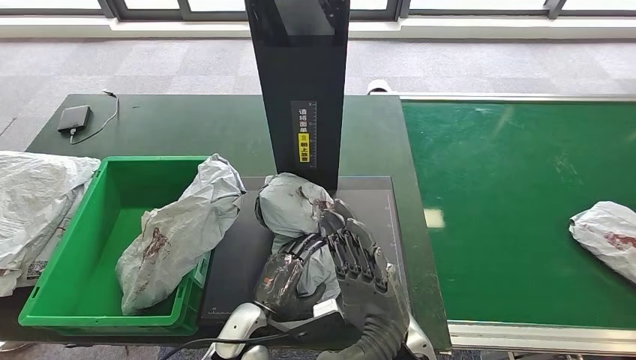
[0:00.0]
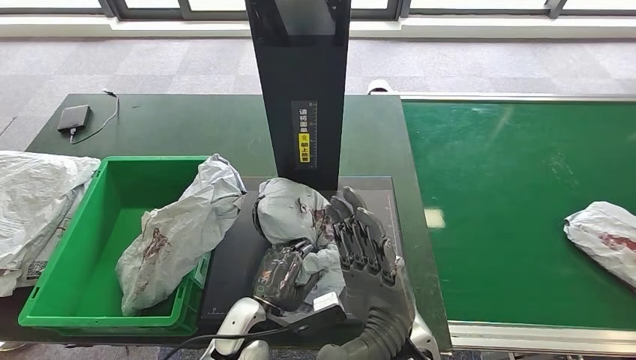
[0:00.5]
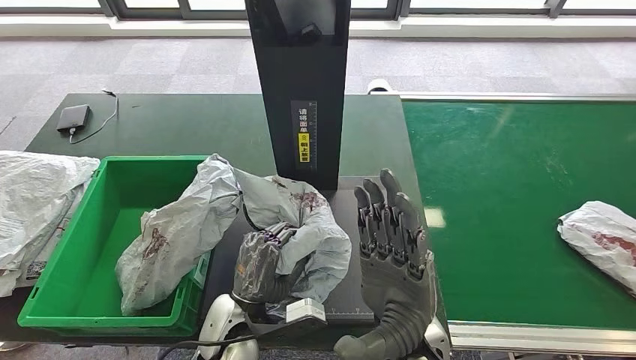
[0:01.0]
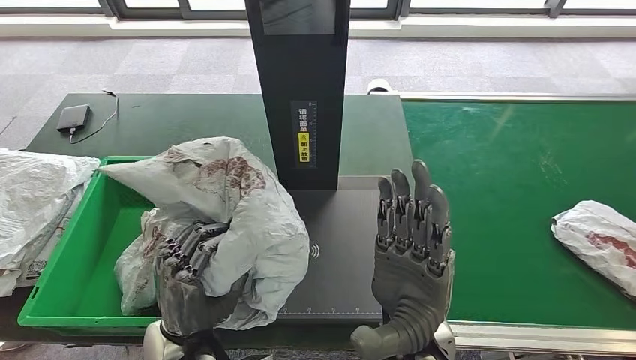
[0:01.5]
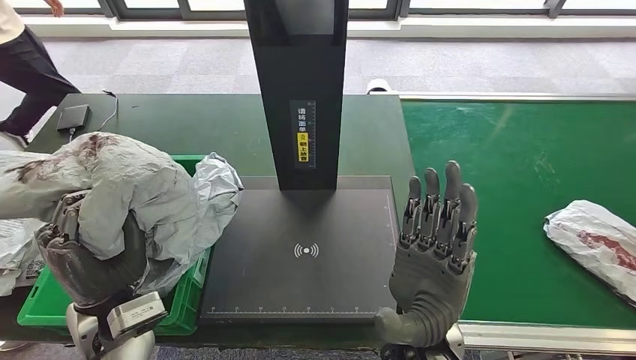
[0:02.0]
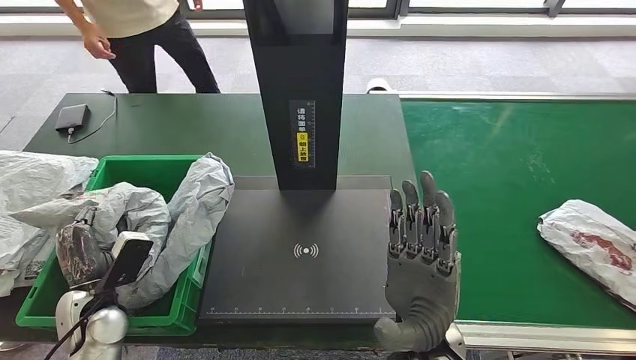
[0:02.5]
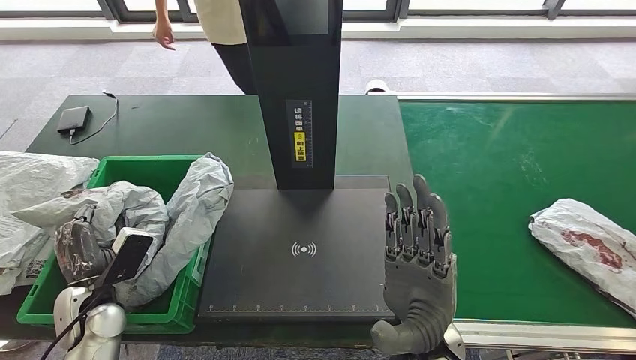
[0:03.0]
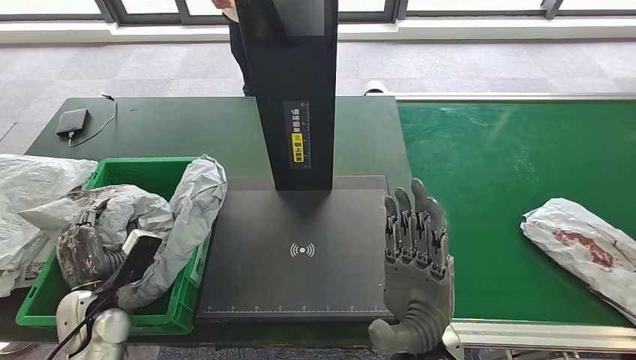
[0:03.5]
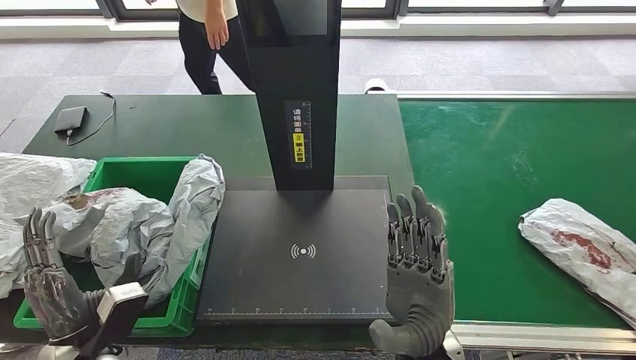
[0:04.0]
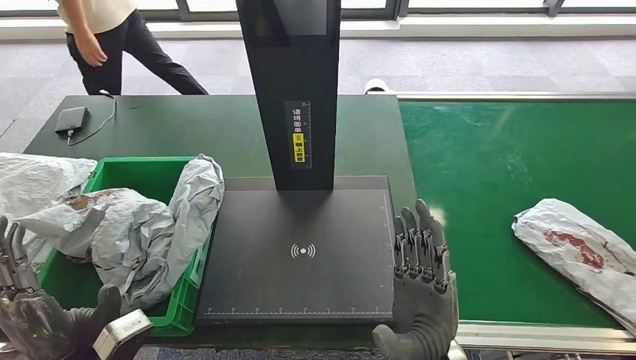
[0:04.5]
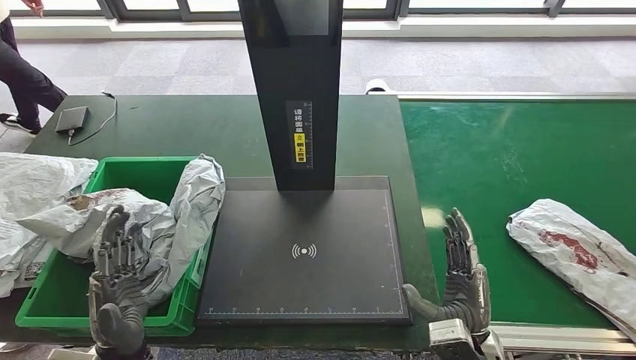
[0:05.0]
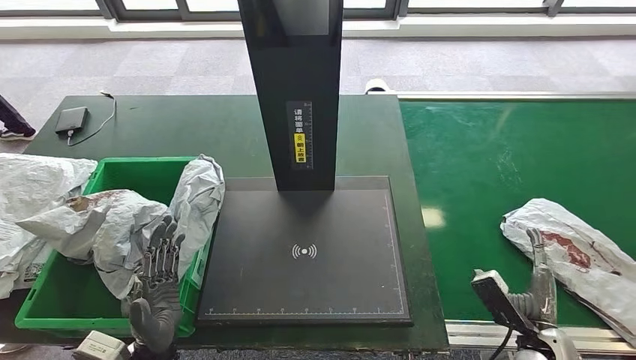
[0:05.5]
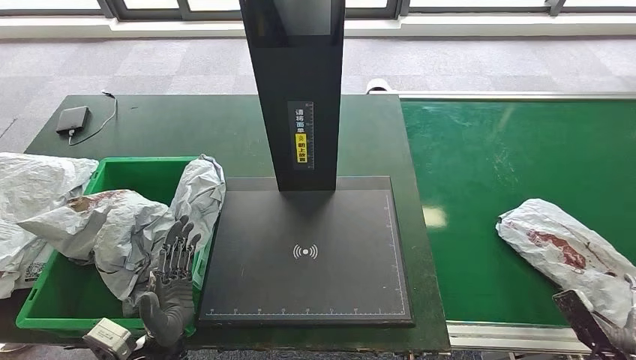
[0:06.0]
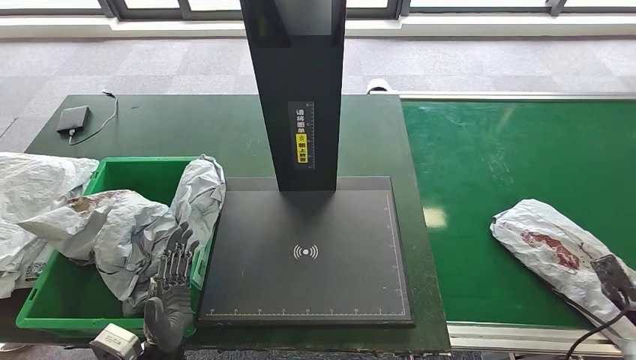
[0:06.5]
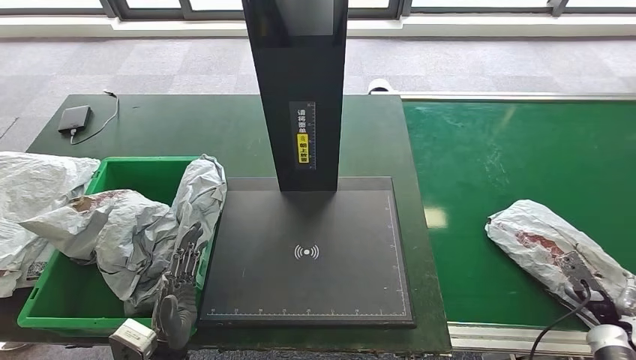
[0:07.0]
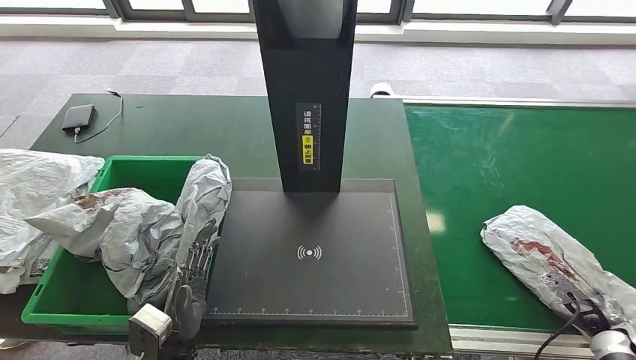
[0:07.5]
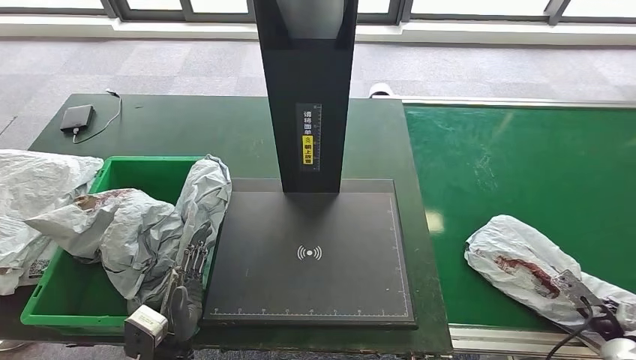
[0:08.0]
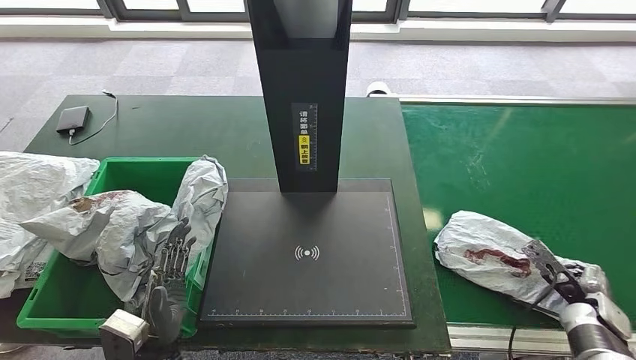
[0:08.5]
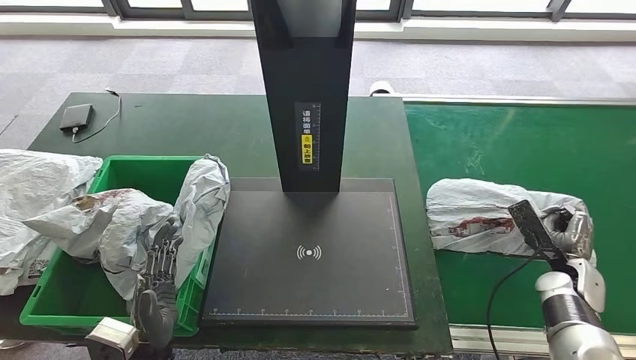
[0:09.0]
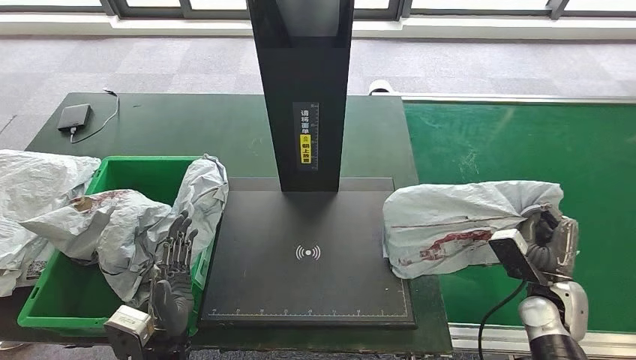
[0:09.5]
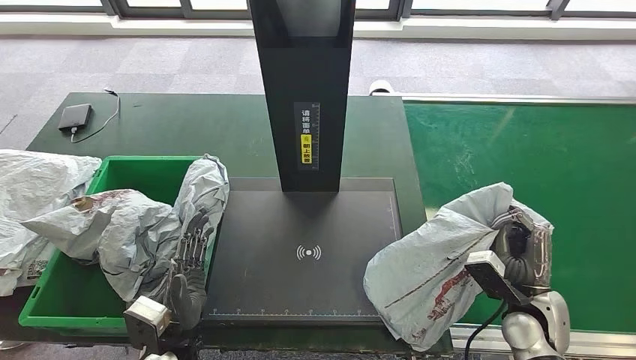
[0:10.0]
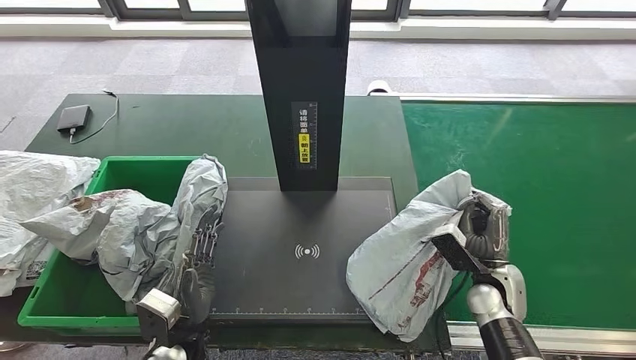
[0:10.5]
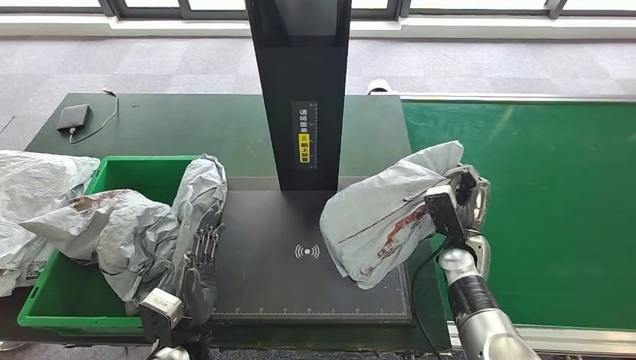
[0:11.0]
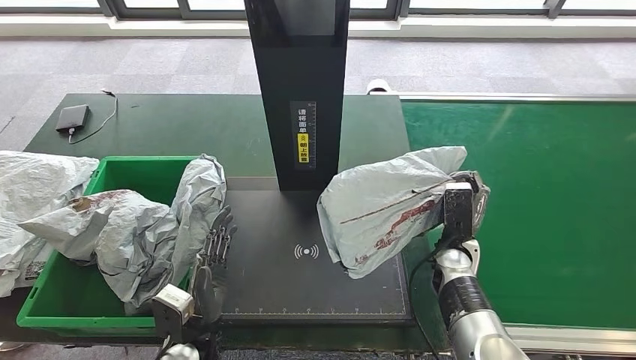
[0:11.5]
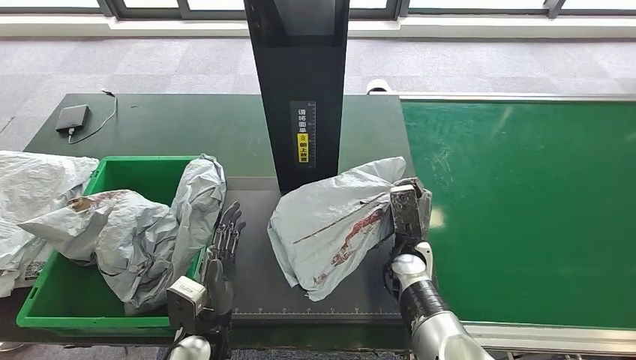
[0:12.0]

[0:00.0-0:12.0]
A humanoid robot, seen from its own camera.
Step, 0:00.0 to 0:02.0: Pick up the parcel from the inbound machine.
Step, 0:02.5 to 0:05.0: Place the parcel into the delivery box.
Step, 0:05.5 to 0:10.0: Pick up the parcel from the conveyor belt.

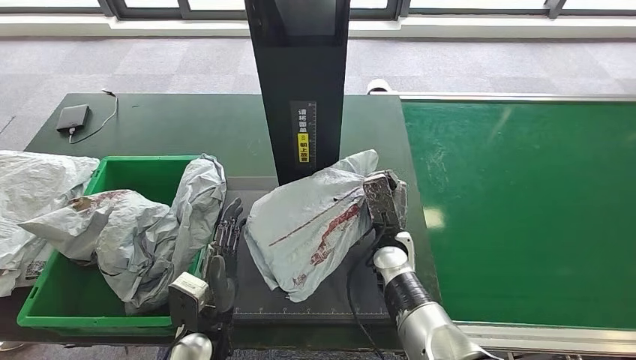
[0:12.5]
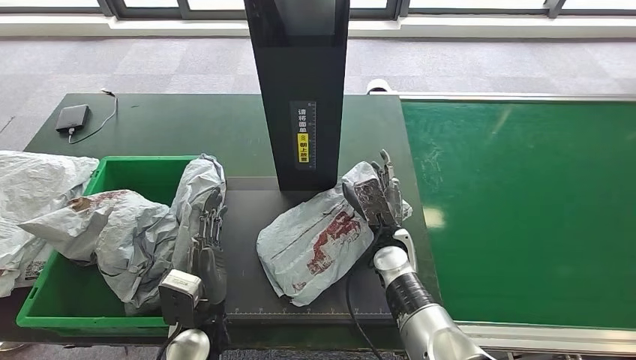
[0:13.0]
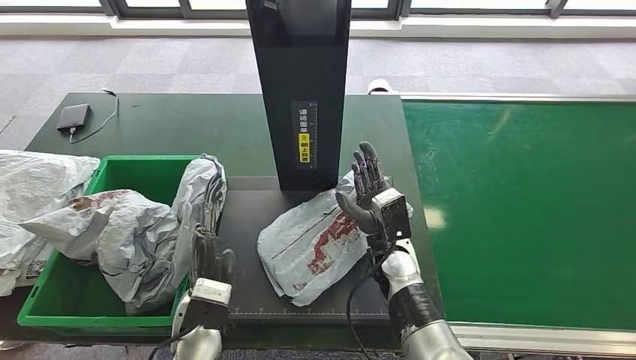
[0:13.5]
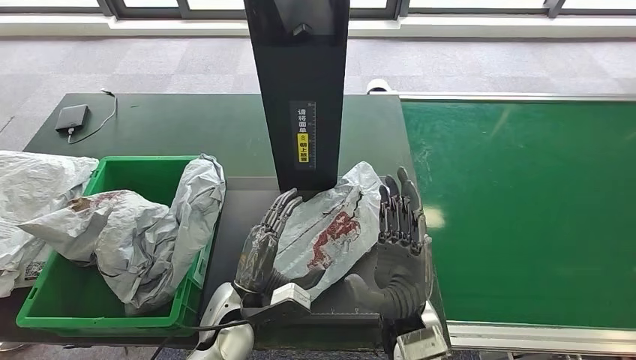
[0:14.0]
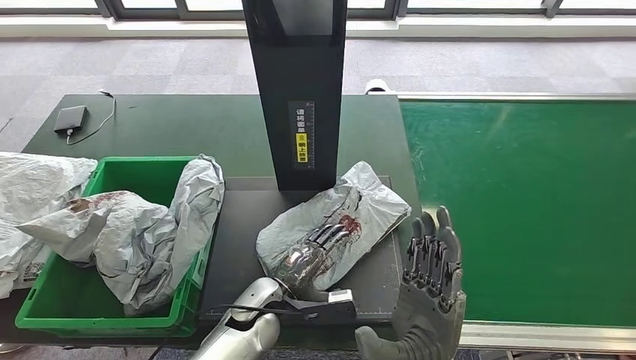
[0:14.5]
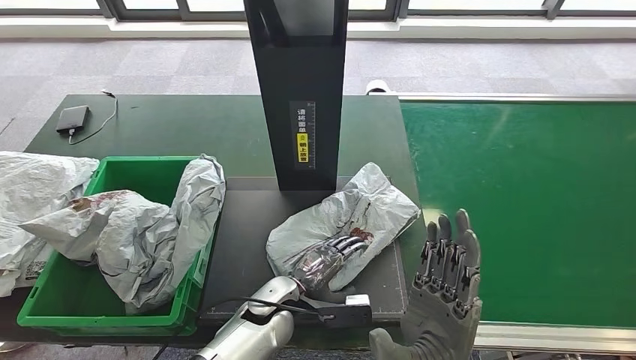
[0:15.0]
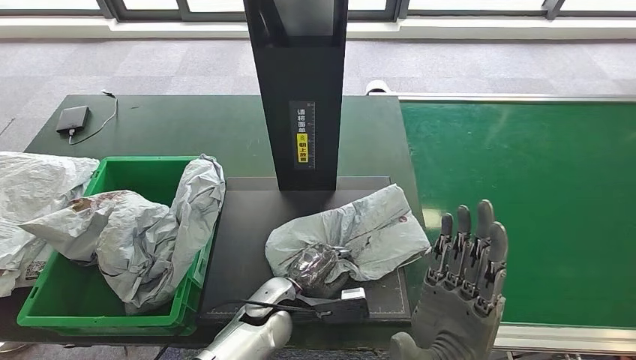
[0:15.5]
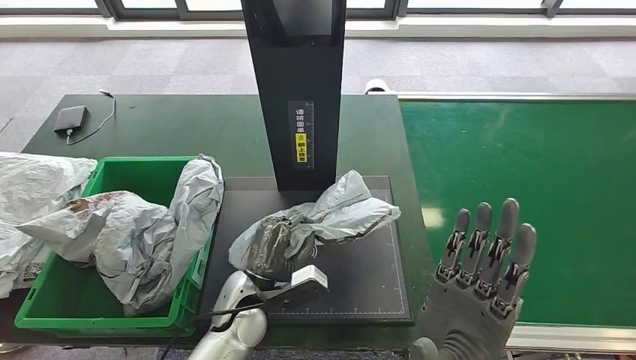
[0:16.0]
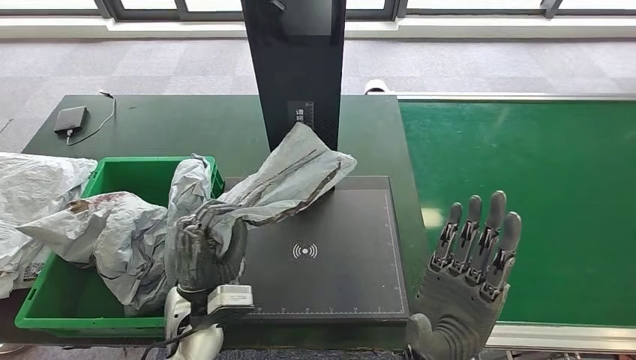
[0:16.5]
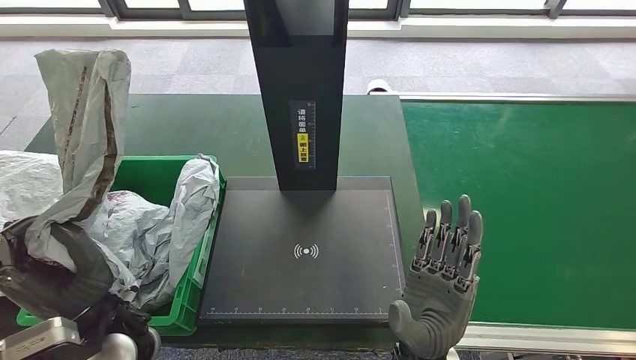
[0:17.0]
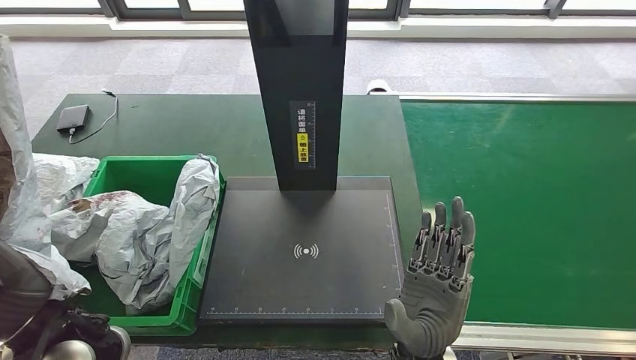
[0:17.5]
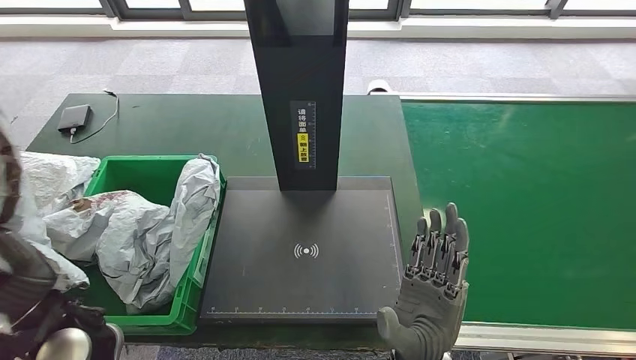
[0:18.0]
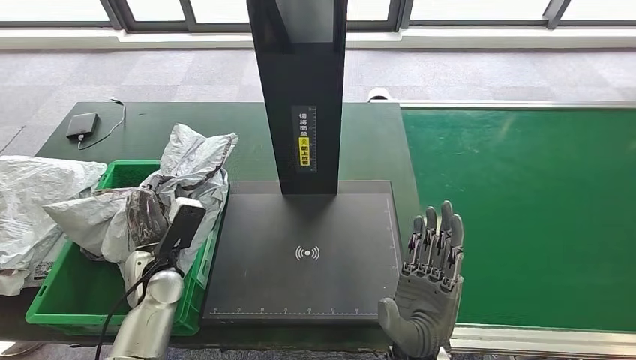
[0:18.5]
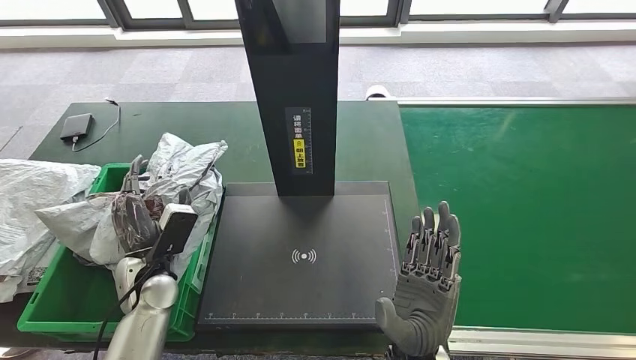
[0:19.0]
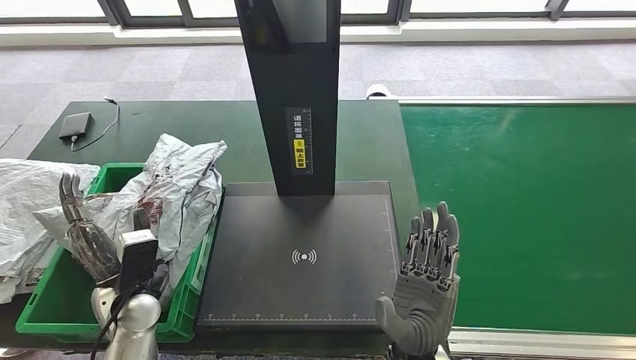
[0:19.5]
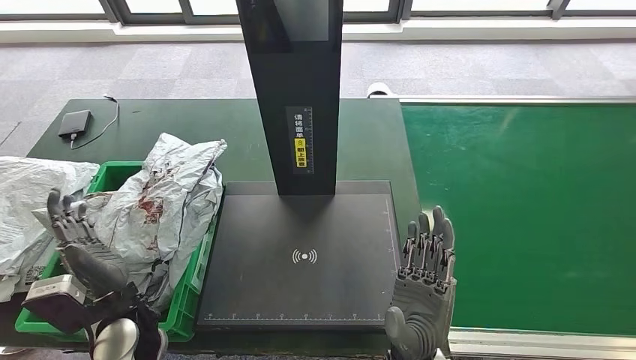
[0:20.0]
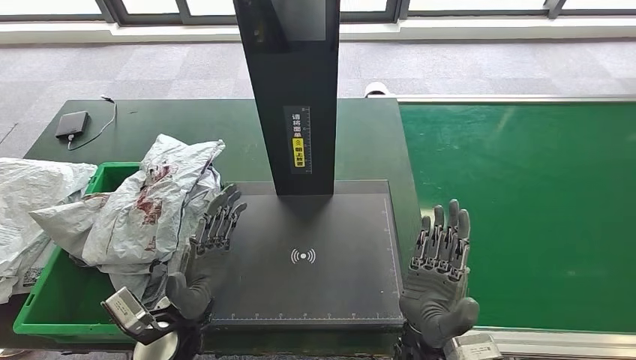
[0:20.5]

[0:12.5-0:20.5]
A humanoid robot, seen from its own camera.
Step, 0:14.0 to 0:16.5: Pick up the parcel from the inbound machine.
Step, 0:17.0 to 0:20.5: Place the parcel into the delivery box.
0:12.5 to 0:14.5: The right hand travels backward and upward by approximately 20 cm, while the left hand shifts roughly 10 cm to the right and forward.
0:14.5 to 0:16.5: The left hand moves to the left and upward, roughly 10 cm.
